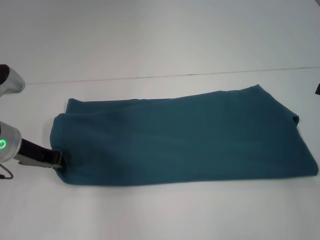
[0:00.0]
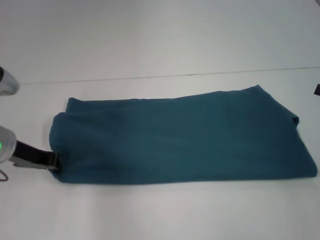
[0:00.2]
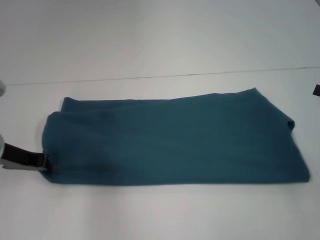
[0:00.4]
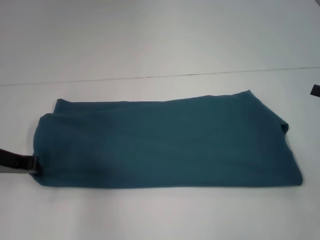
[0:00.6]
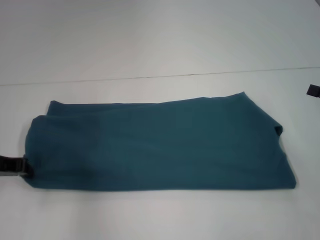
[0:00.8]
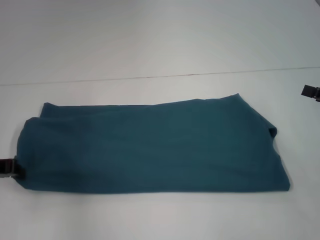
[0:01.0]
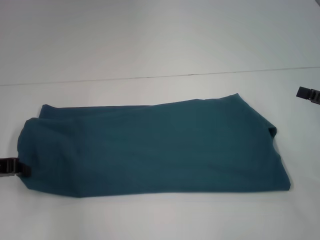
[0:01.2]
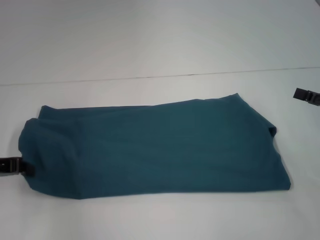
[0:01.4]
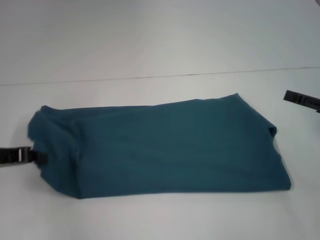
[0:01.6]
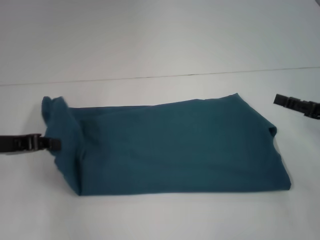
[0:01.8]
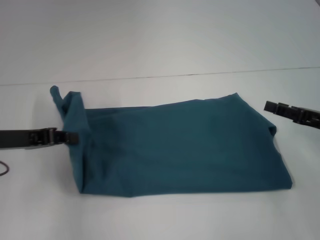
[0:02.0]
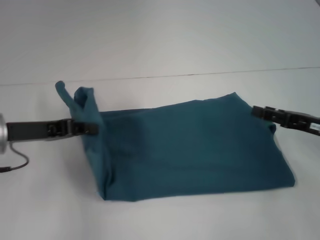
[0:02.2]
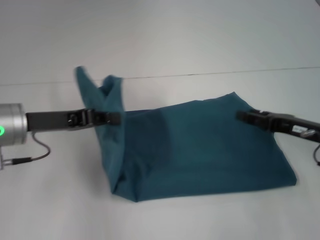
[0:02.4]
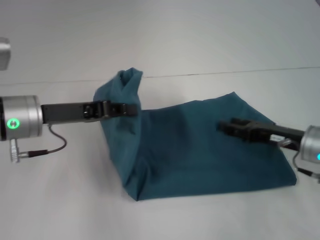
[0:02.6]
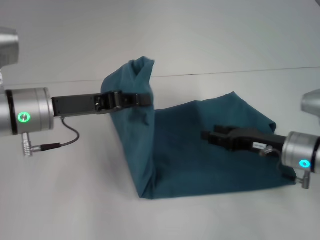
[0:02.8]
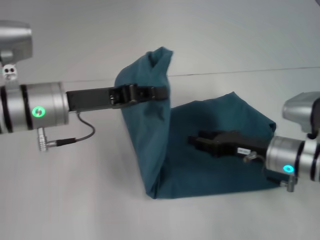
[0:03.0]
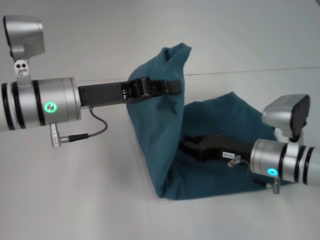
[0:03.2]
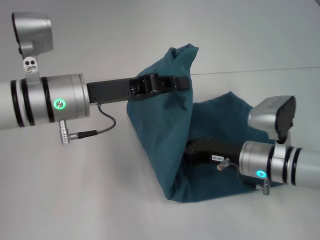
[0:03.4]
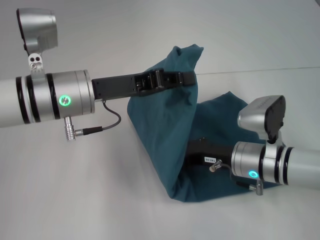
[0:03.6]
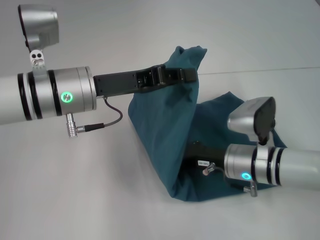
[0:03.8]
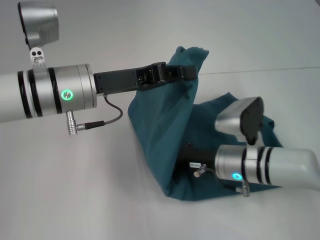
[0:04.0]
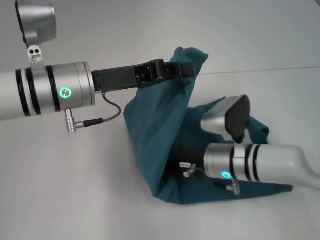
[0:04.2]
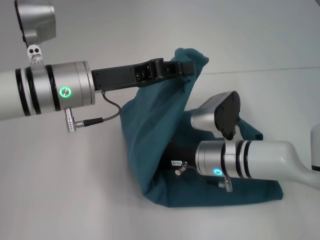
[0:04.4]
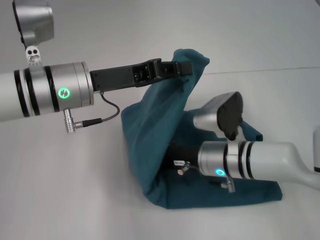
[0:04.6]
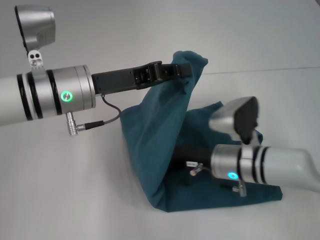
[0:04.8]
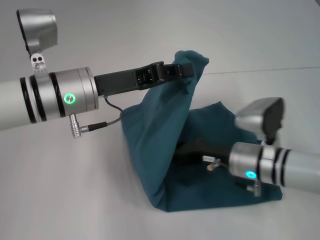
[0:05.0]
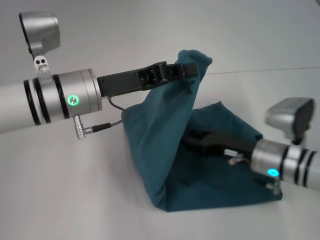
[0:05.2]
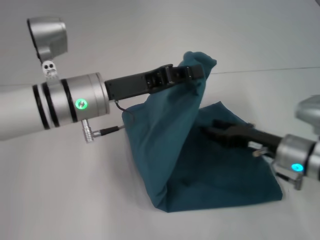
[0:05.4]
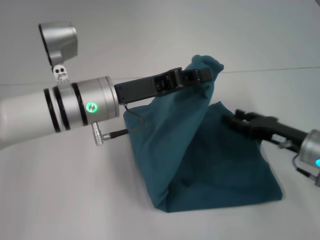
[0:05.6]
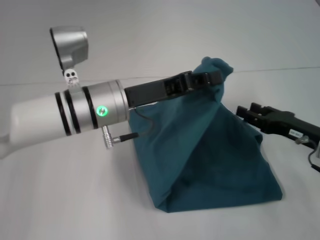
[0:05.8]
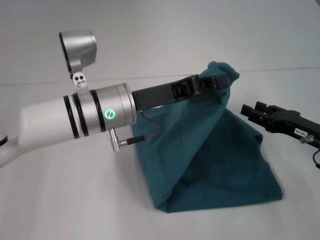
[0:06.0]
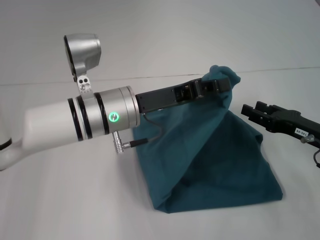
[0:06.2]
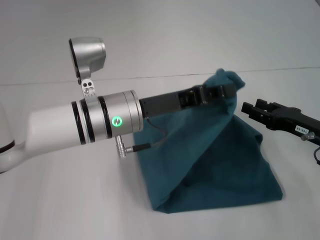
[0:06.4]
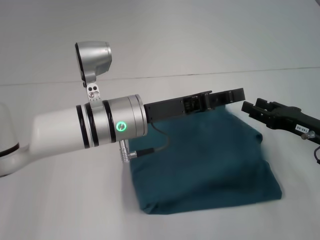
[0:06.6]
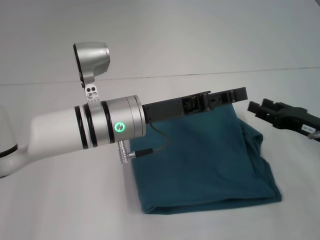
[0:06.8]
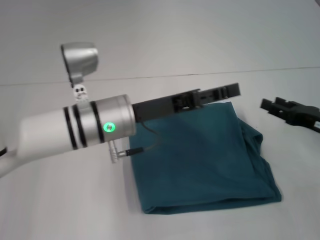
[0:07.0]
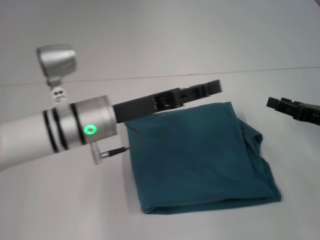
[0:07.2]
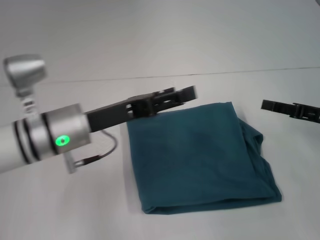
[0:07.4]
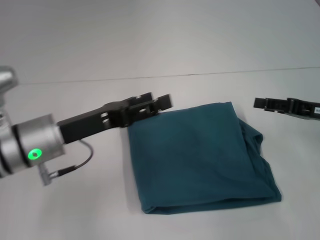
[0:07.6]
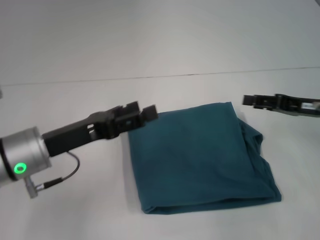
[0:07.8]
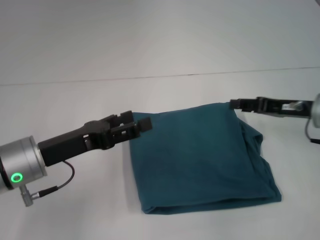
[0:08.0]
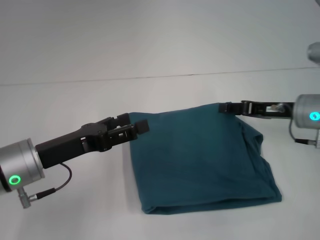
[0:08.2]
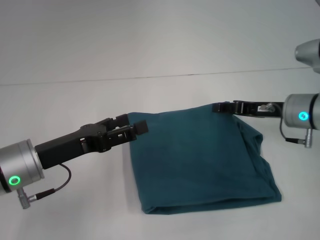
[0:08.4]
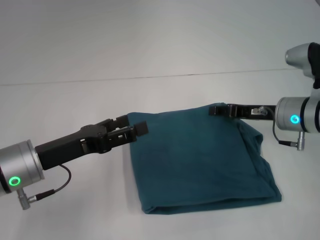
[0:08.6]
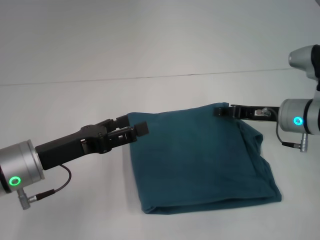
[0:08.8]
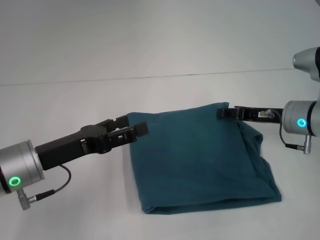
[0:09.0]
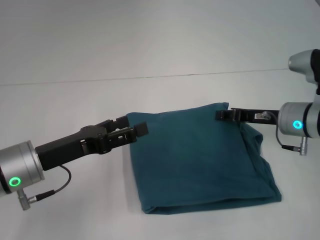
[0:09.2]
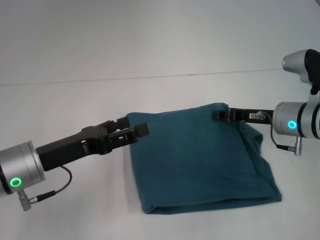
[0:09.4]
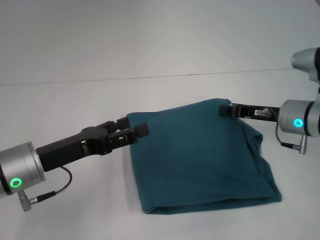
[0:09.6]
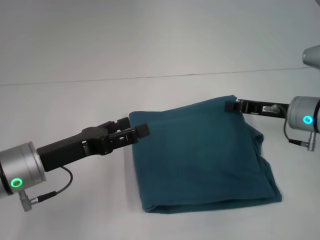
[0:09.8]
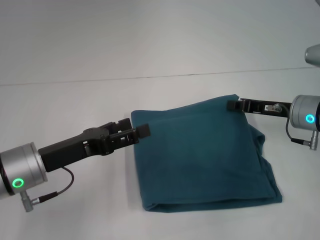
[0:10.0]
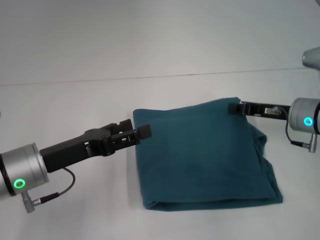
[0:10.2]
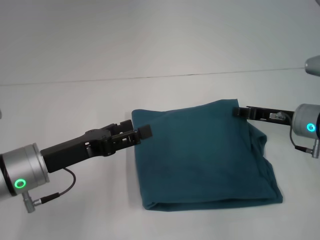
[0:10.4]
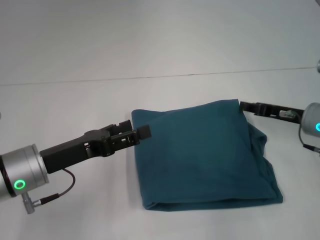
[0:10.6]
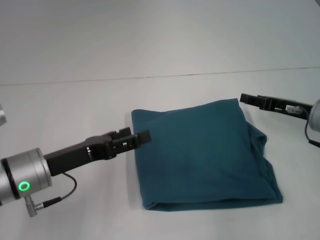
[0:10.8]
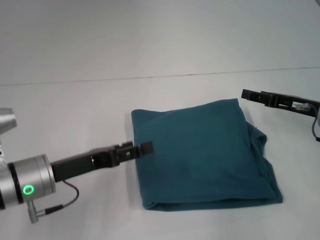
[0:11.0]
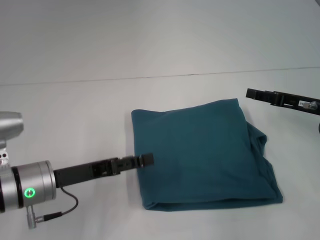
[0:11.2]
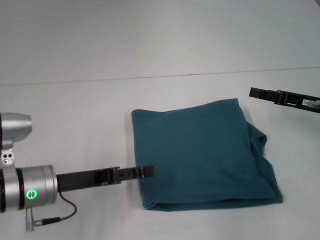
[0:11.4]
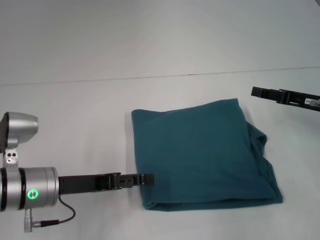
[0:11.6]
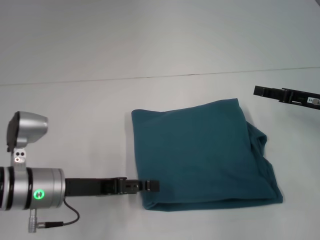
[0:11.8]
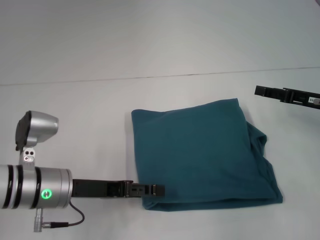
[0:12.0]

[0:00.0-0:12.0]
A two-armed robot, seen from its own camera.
Step, 0.0 to 5.0 s: Press the middle of the clothes with your right hand.
Step, 5.2 to 6.8 s: Fold the clothes to the left.
0.0 to 1.6 s: The left gripper shifts about 5 cm to the left.
1.6 to 3.0 s: The right gripper travels to the left and downward by roughly 15 cm, and closes its fingers. The left gripper travels to the right by about 15 cm.
3.0 to 4.4 s: The right gripper heads to the left, covering roughly 10 cm, and closes.
4.4 to 6.0 s: The right gripper is displaced to the right by some 20 cm, and opens its fingers. Meanwhile the left gripper shifts by approximately 5 cm.
6.0 to 7.6 s: The left gripper moves to the left, approximately 10 cm, and opens its fingers, while the right gripper ends up about 5 cm from where it was.
7.6 to 9.0 s: The right gripper is displaced to the left by about 10 cm.
9.0 to 10.4 s: There are only small adjustments of the grippers.
10.4 to 12.0 s: The right gripper travels to the right by some 5 cm, and opens.

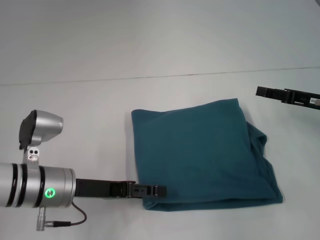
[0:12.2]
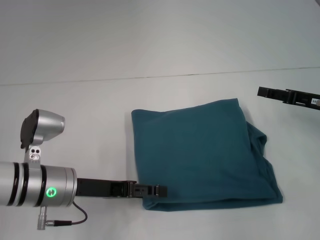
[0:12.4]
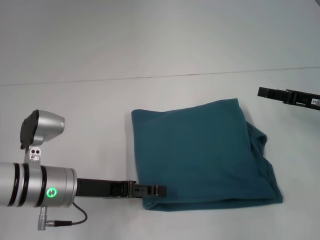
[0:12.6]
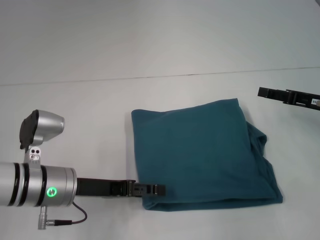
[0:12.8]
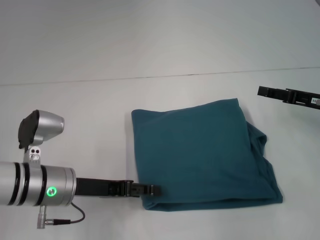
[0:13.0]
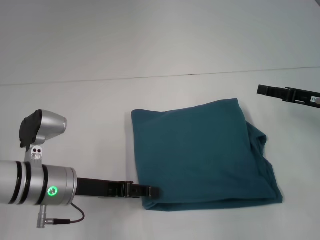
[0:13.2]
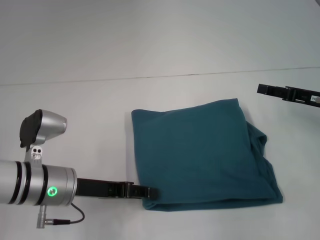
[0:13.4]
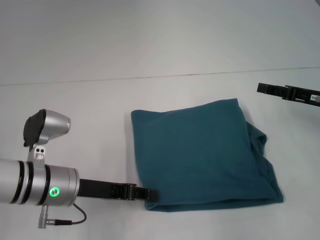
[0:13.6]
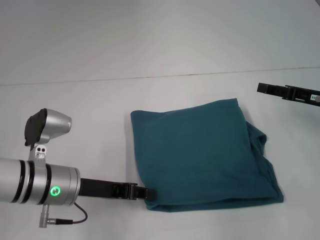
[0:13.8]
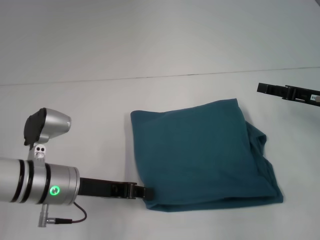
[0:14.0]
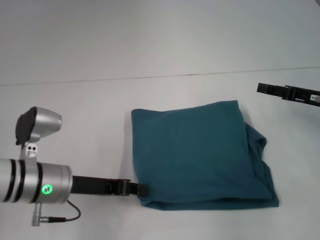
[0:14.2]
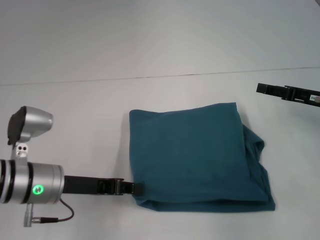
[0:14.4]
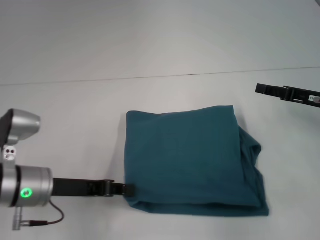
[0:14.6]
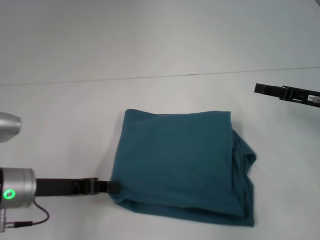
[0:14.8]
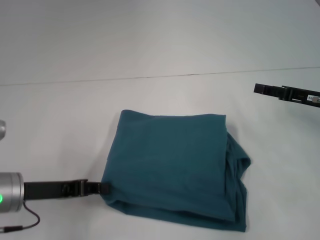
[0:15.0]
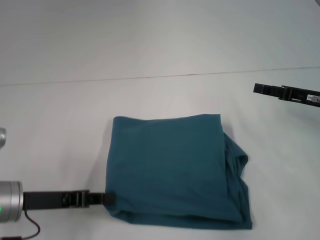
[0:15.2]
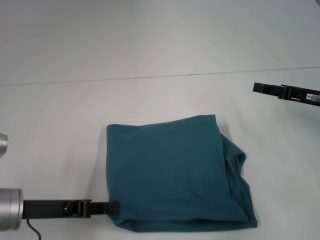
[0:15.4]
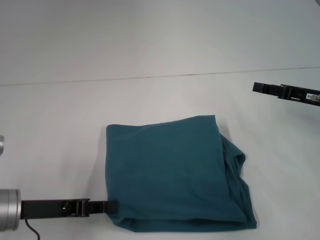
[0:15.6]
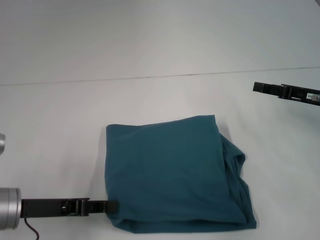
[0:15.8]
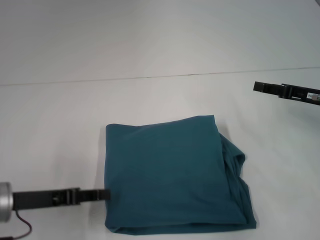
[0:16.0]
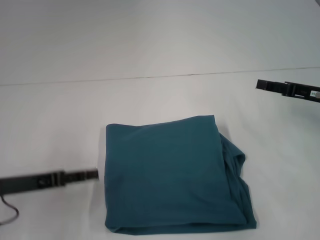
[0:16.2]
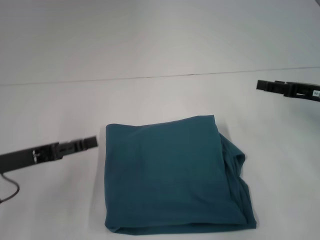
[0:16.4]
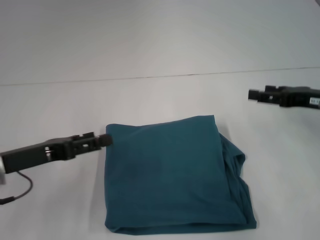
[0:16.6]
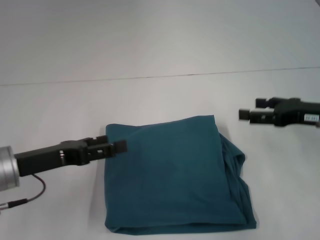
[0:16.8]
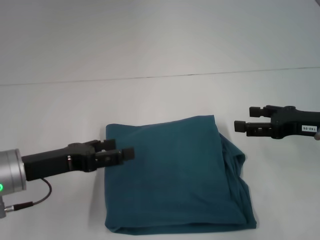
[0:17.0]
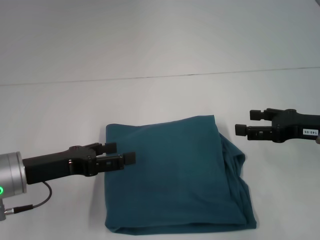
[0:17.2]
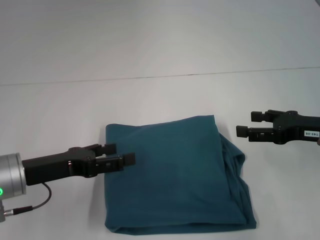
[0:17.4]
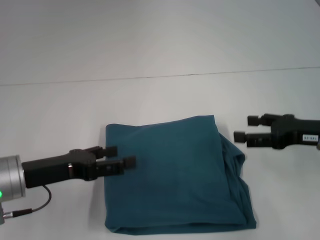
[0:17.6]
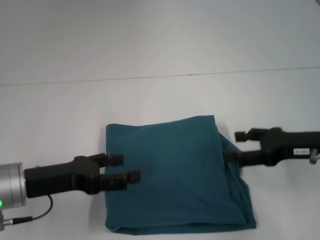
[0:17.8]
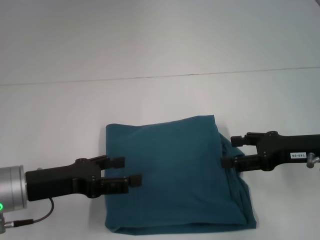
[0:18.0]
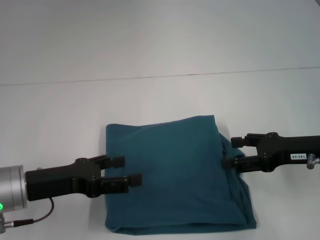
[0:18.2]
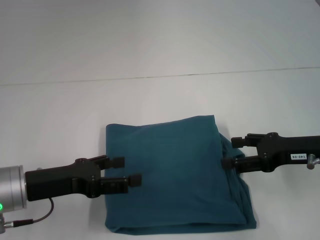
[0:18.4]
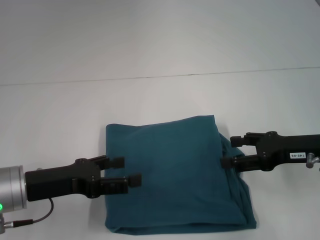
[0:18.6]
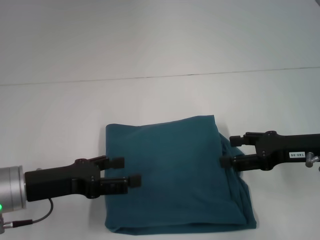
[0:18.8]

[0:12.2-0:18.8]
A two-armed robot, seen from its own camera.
12.2 to 13.8 s: The left gripper closes its fingers.
13.8 to 15.4 s: The left gripper goes roughly 5 cm to the left.
15.4 to 17.2 s: The left gripper opens up.
17.2 to 18.8 s: The grippers move only a little.

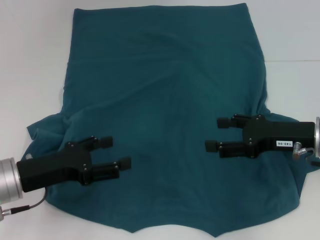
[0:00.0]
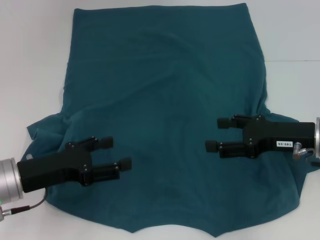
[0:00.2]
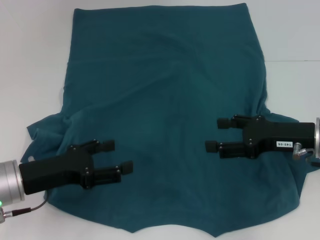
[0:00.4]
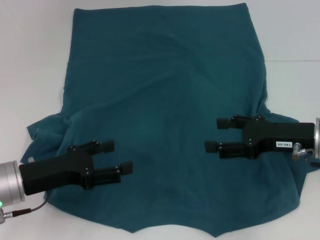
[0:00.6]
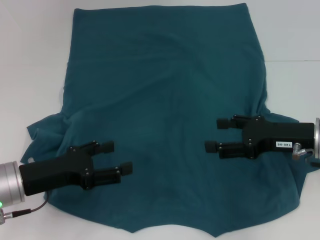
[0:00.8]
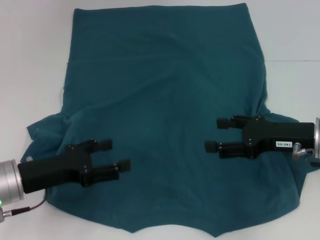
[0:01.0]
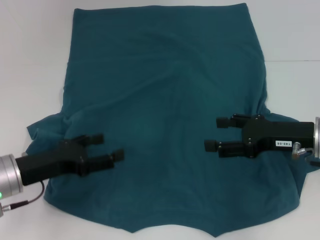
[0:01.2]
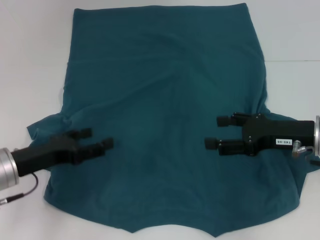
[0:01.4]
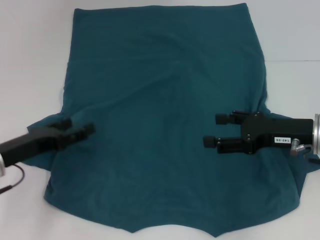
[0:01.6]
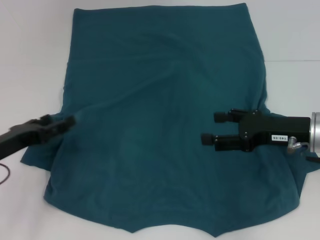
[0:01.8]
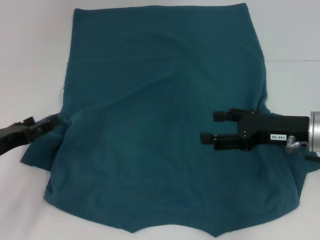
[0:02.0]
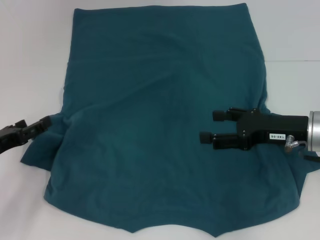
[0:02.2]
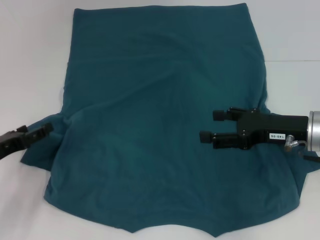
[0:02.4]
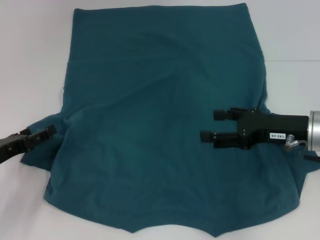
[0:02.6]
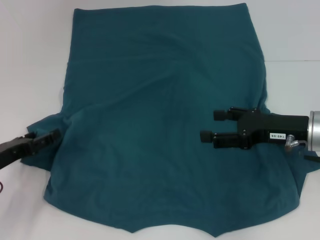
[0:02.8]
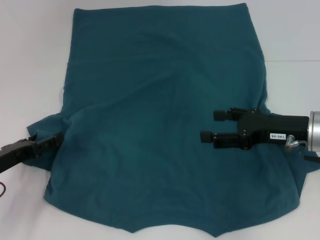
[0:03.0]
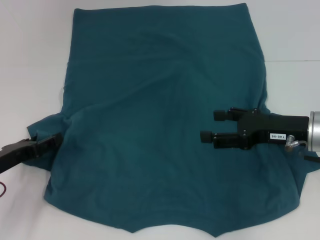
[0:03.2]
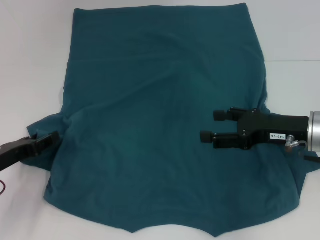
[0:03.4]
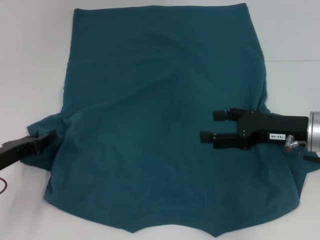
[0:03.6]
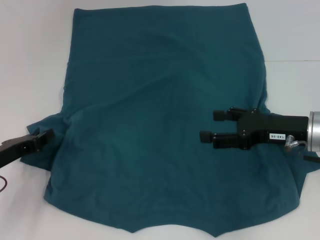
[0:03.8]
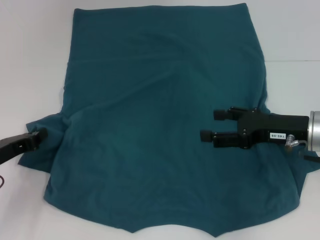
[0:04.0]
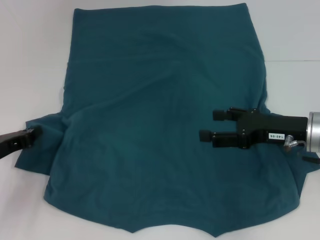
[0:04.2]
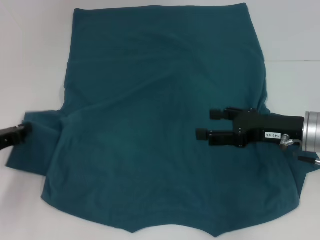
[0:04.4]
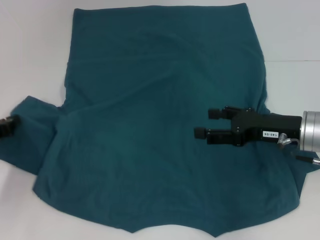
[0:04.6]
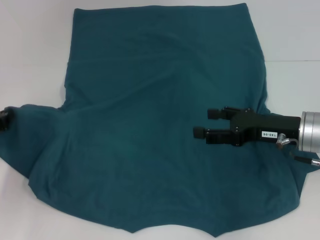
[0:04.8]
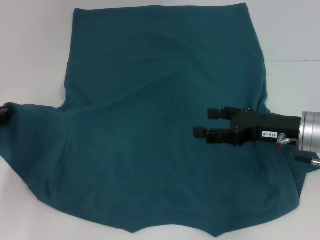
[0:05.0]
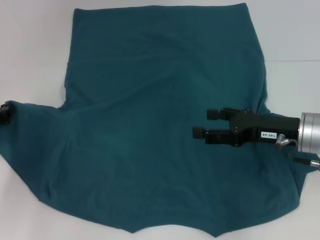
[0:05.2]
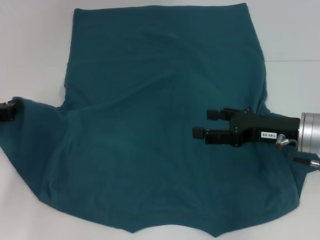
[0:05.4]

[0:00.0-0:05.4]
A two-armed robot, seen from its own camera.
0.0 to 1.4 s: The grippers make only small movements.
1.4 to 2.8 s: The left gripper moves to the left, roughly 5 cm.
2.8 to 4.0 s: The left gripper closes.
4.0 to 5.4 s: The left gripper shifts by roughly 5 cm.
